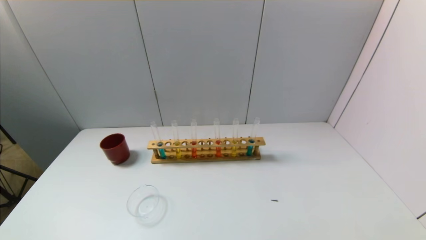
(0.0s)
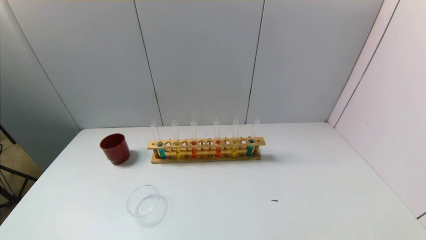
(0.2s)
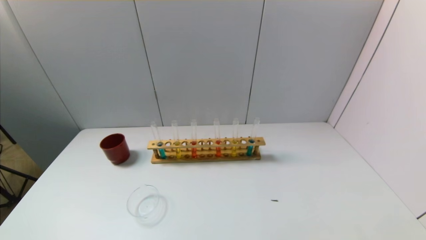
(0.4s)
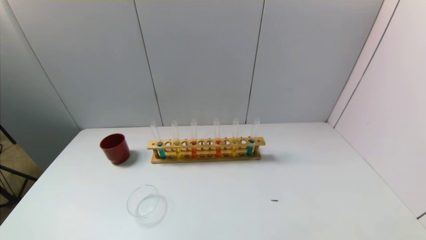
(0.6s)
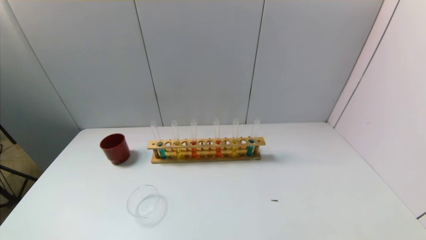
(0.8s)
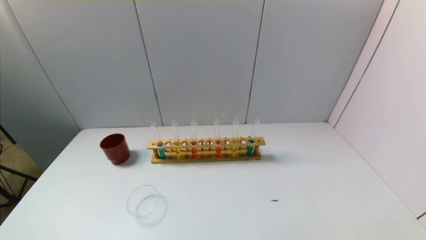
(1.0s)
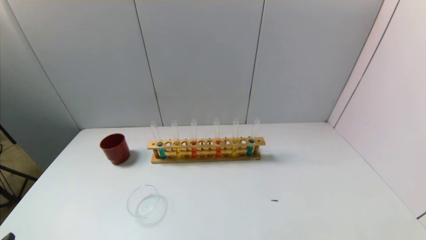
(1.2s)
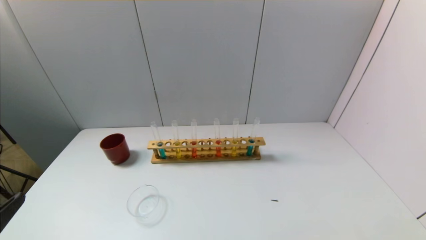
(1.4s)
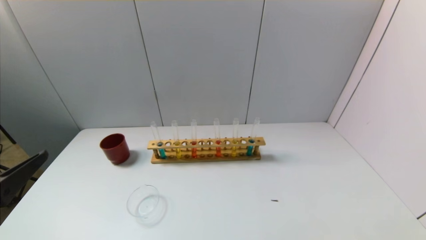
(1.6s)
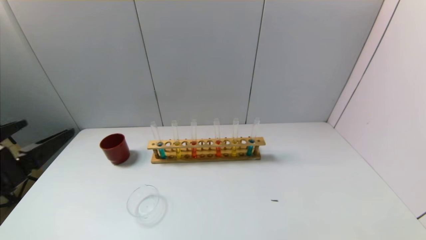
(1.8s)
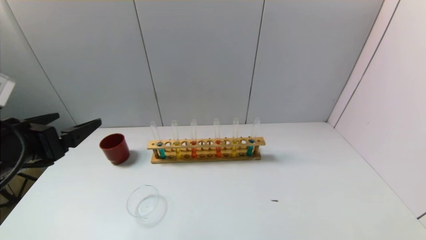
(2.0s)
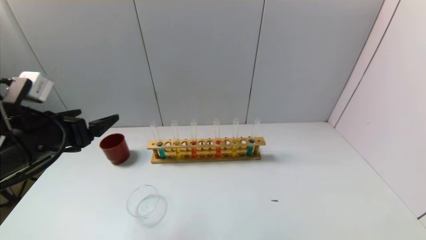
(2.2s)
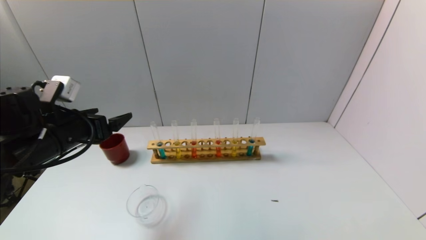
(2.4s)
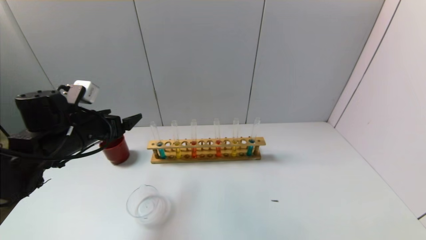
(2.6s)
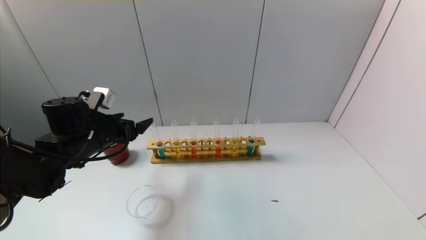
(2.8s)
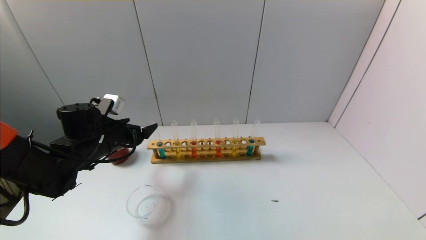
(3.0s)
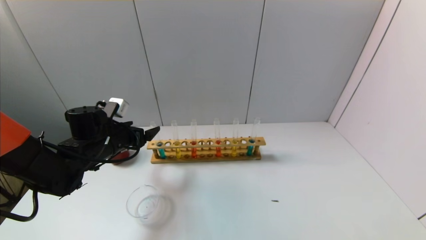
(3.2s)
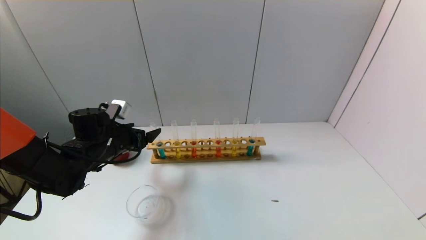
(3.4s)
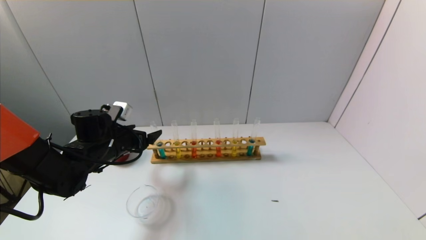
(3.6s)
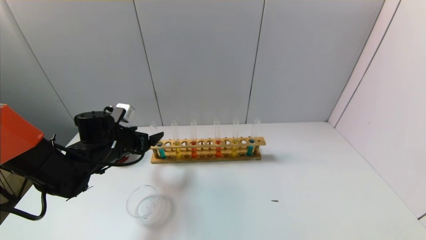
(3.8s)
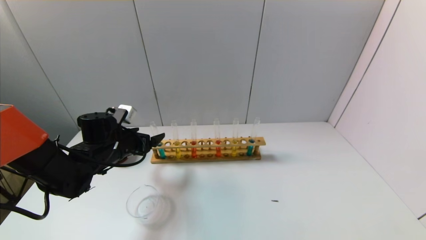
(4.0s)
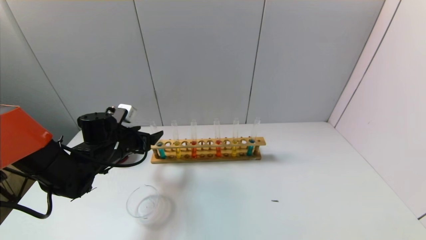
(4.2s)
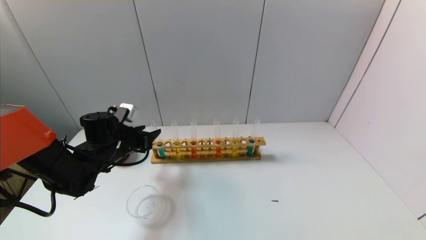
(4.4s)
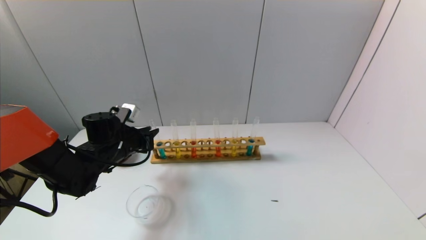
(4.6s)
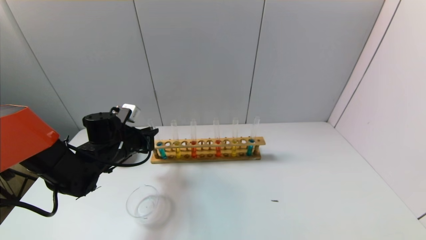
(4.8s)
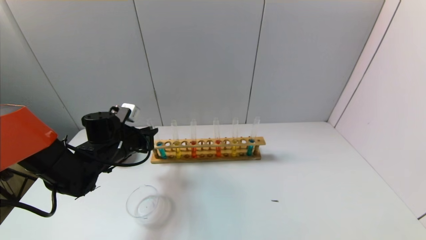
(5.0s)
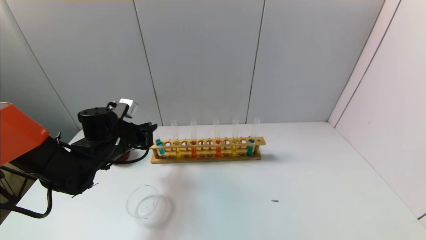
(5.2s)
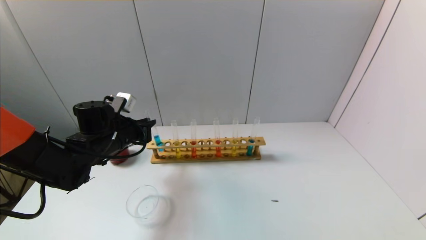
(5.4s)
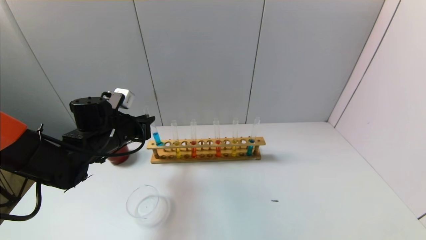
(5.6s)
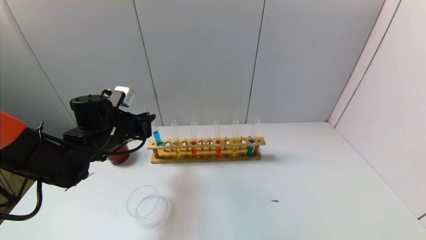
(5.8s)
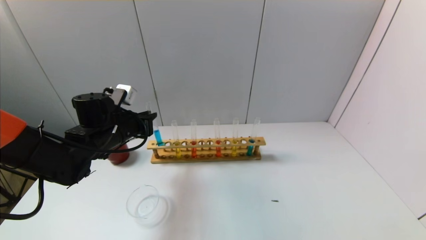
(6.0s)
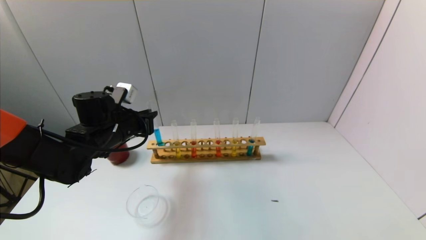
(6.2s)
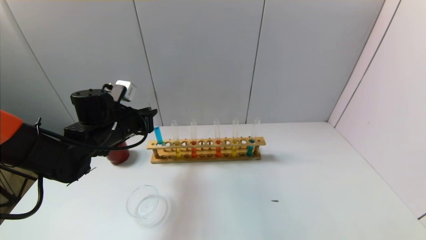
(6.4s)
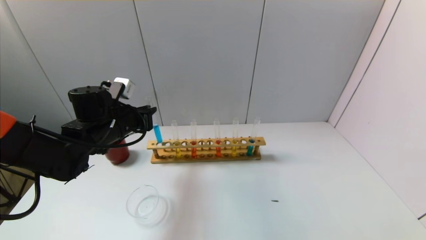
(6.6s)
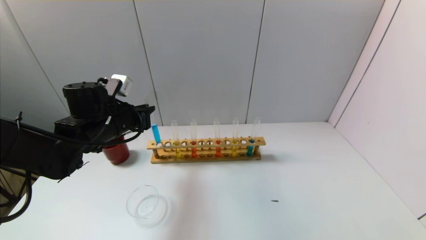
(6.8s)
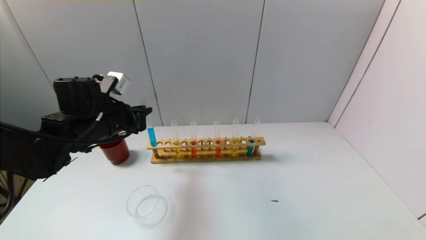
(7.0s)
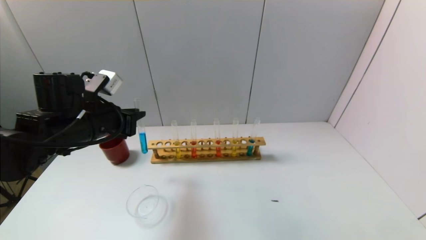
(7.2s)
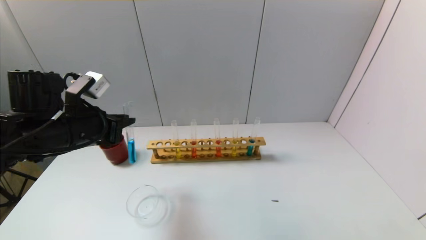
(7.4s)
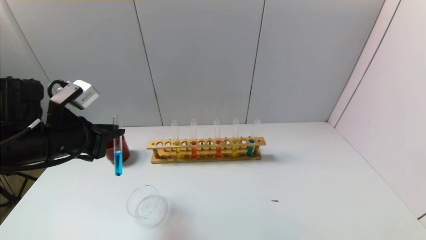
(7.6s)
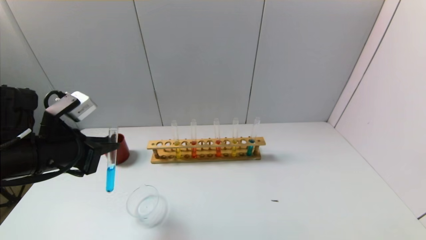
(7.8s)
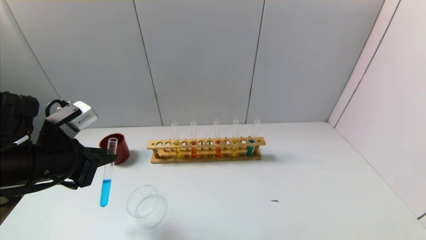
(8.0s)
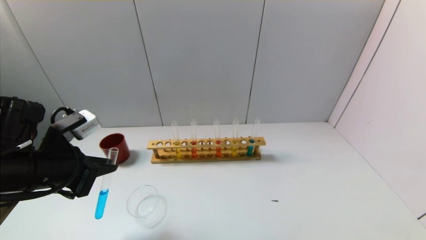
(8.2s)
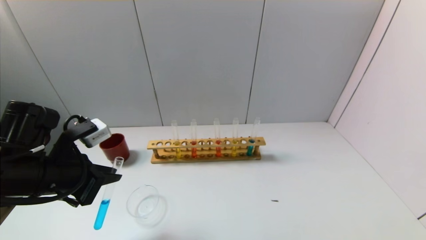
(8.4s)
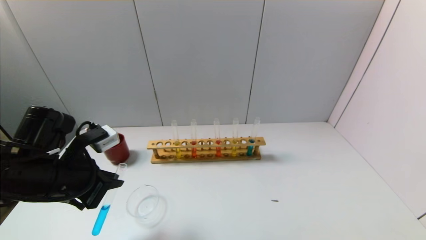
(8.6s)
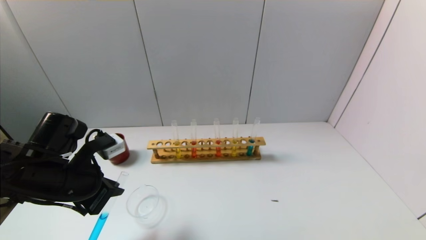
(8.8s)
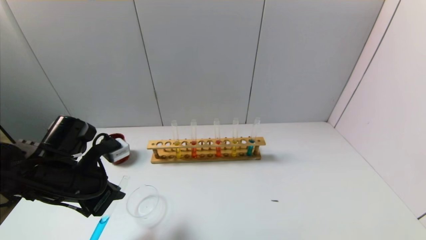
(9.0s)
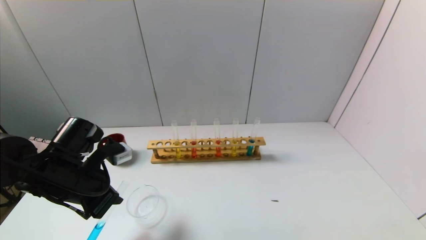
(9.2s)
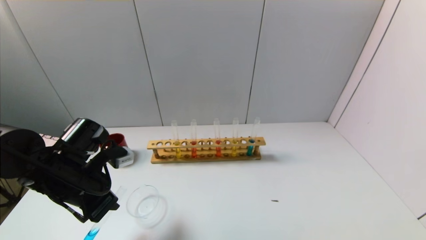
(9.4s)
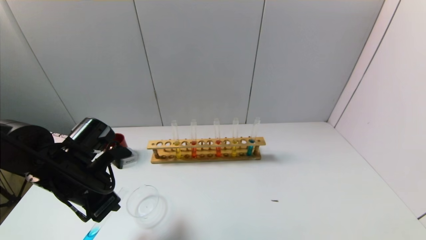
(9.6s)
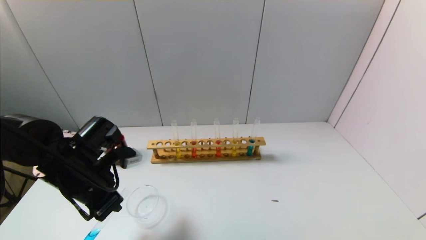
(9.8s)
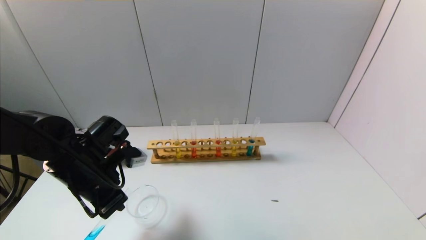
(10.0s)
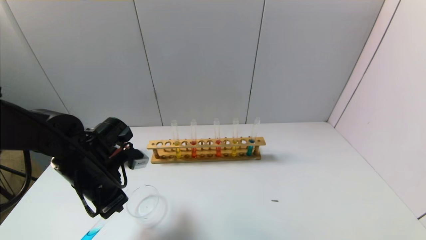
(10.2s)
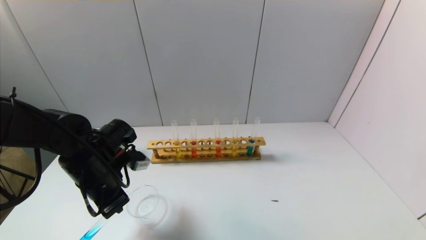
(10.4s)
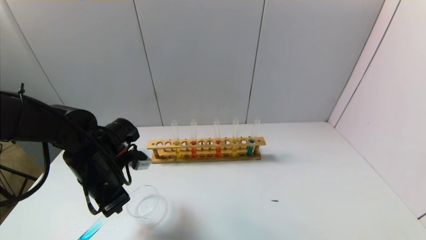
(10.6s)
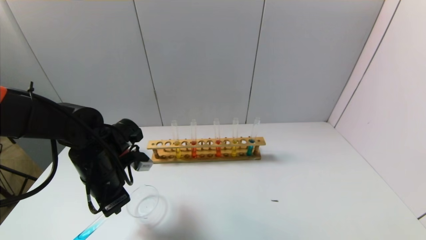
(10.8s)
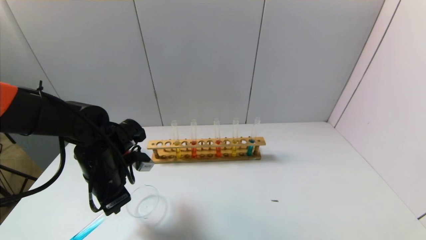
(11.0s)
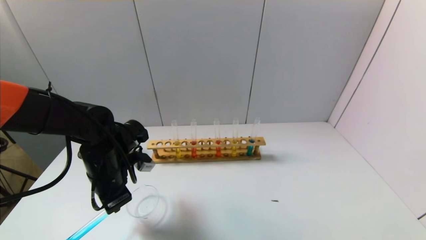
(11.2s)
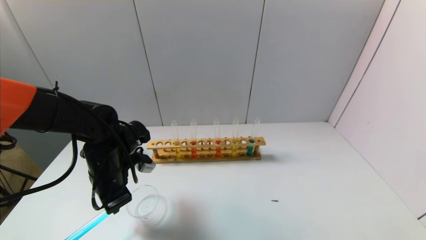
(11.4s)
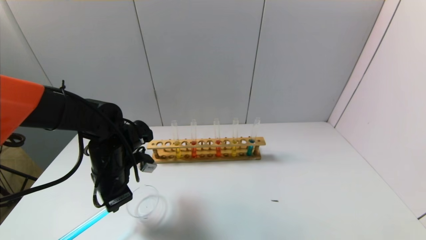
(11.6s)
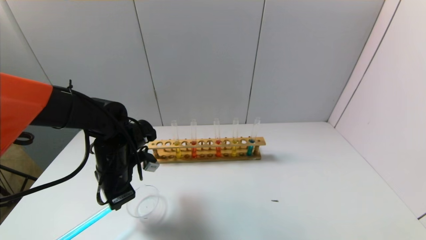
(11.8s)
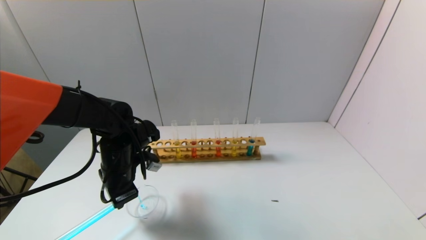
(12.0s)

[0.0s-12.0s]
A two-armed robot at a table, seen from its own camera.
Task of the whole recording: pick up the test tube with yellow pigment and the test tube with blue pigment by grippers and pour them into the beaker.
Step, 0.0s to 5.2s: Grasp the blue reagent with the left gripper.
0.0s to 1.6s: The left gripper heads upward and forward, covering about 20 cm.
1.6s to 3.0s: The left gripper shifts approximately 25 cm forward.
3.0s to 4.4s: The left gripper closes.
4.4s to 6.0s: The left gripper is displaced upward by some 5 cm, and closes its fingers.
6.0s to 7.6s: The left gripper moves backward and upward, some 10 cm.
7.6s to 9.0s: The left gripper moves downward, about 5 cm.
10.4s to 12.0s: The grippers stay close to where they were, moving slightly.

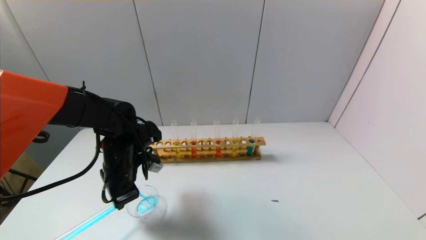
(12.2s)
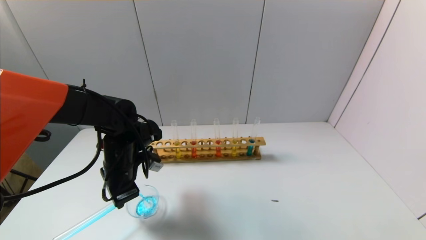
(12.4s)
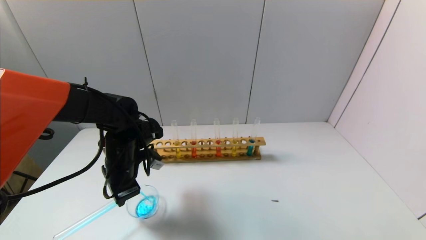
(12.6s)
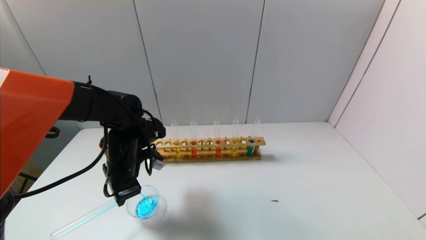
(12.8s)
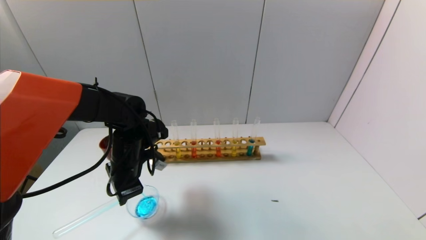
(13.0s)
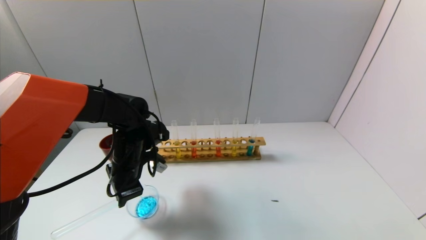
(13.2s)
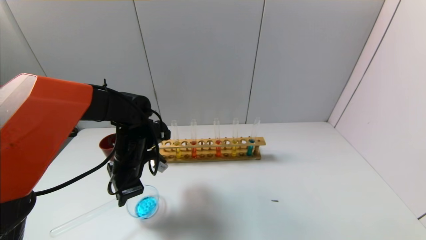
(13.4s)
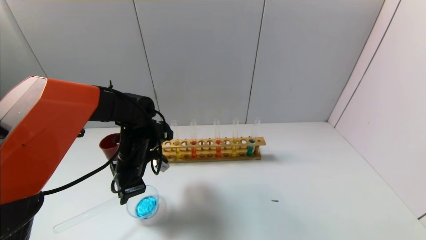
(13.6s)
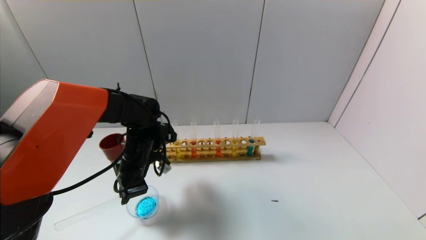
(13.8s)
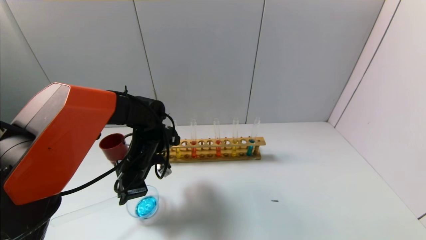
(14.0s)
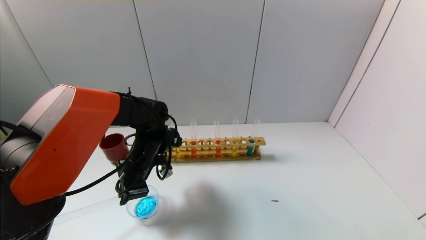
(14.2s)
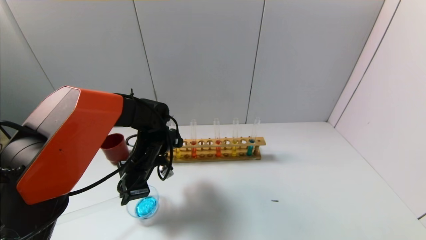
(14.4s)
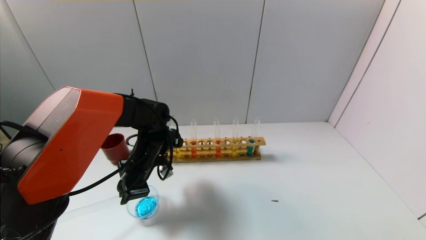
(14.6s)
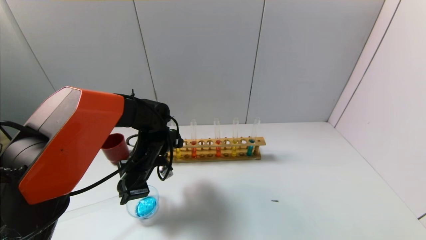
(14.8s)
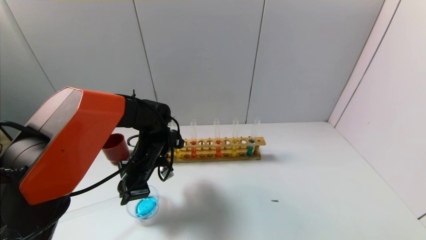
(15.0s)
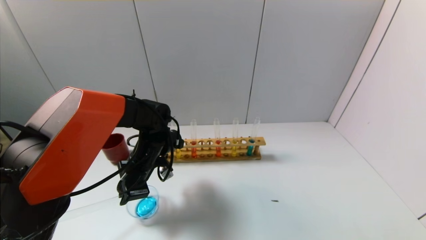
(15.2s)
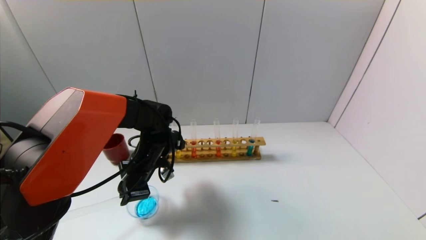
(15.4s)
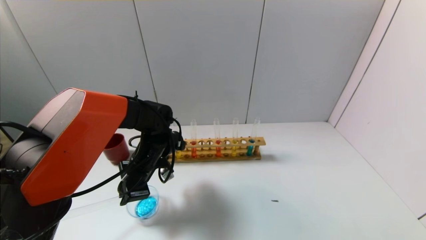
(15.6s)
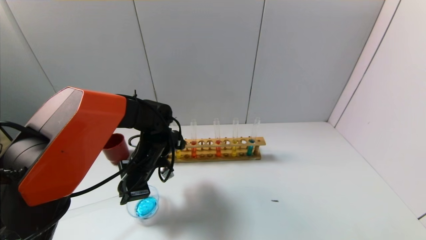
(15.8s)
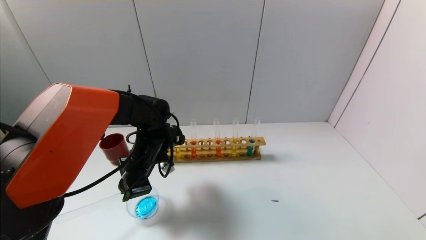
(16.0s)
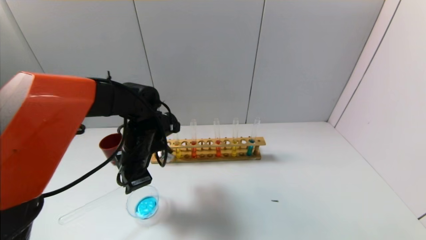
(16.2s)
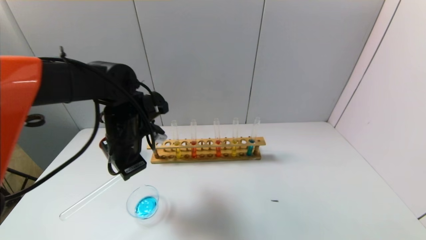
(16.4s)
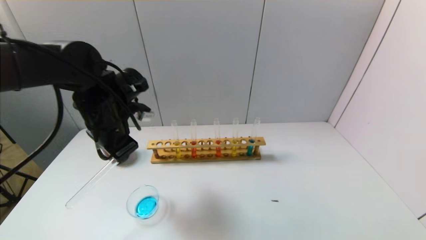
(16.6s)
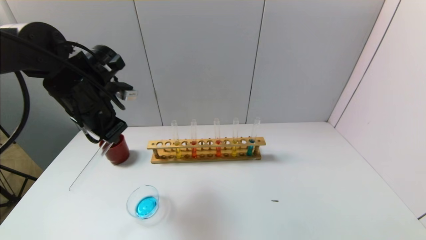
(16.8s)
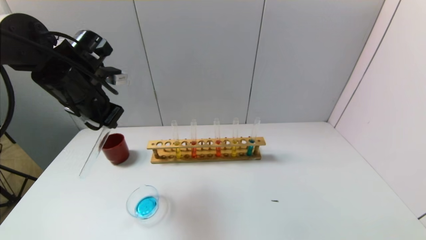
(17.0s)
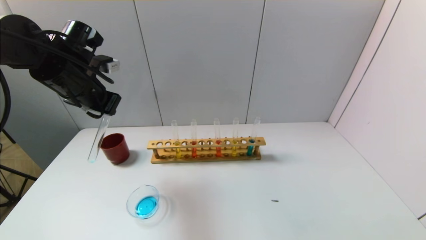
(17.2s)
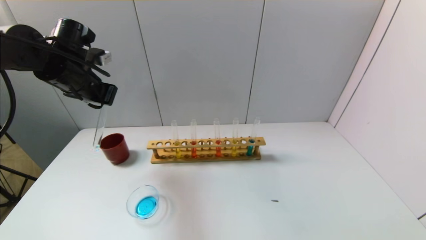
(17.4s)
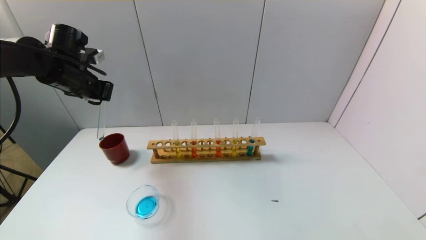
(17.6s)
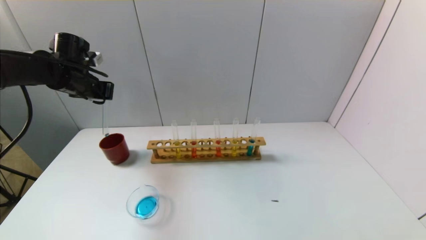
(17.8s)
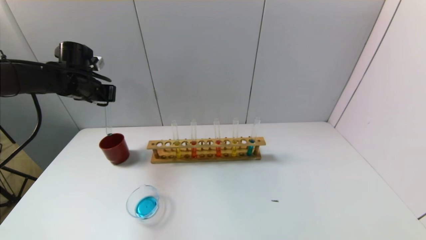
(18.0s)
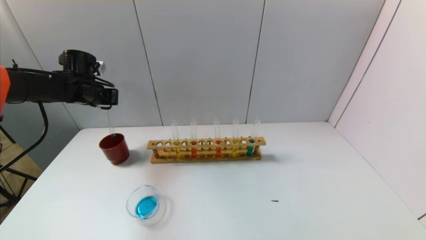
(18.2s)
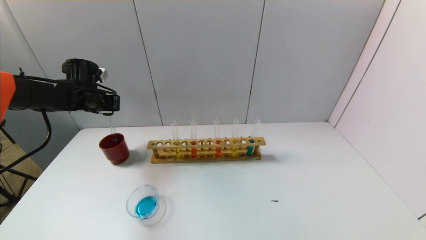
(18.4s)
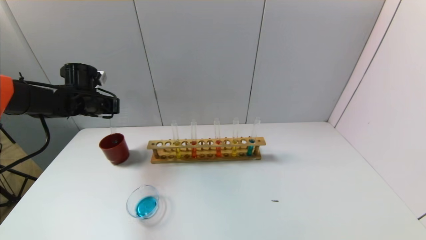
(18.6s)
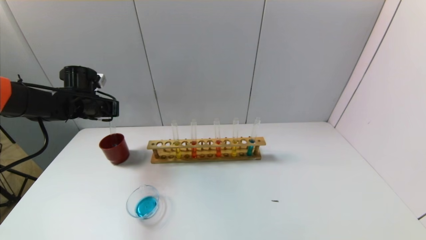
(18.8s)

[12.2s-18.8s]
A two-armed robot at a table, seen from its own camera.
Task of the whole recording: pick up the test tube with yellow pigment and the test tube with blue pigment by grippers and pour them into the beaker.
Step, 12.2s to 16.2s: Pour the blue reagent into the graduated cylinder with the left gripper.
12.2s to 15.4s: There are only small adjustments of the grippers.
15.4s to 17.2s: The left gripper is displaced upward and to the left by approximately 20 cm.
17.2s to 18.8s: The left gripper shifts roughly 15 cm downward, forward and to the left.
